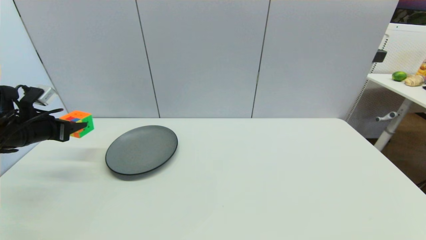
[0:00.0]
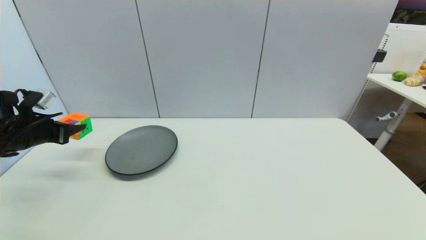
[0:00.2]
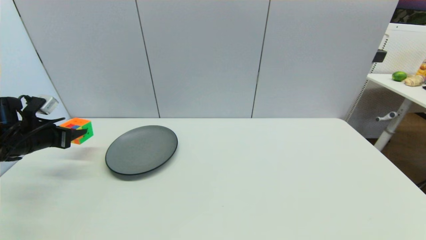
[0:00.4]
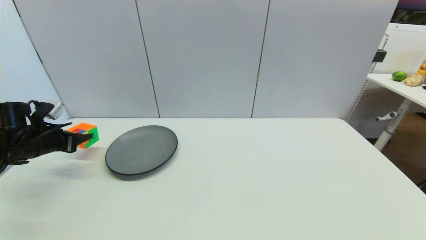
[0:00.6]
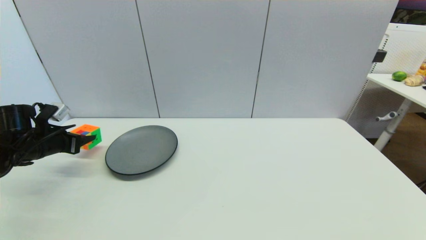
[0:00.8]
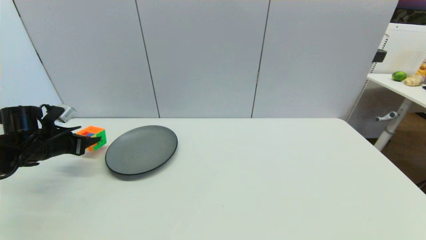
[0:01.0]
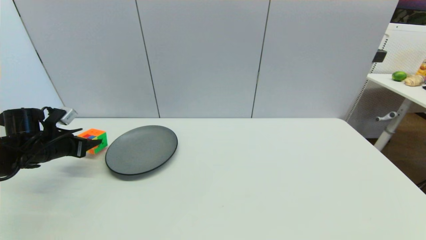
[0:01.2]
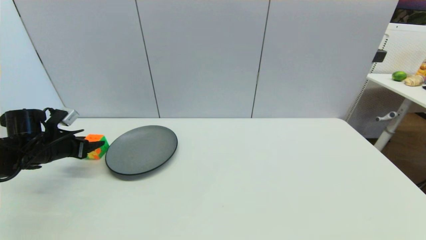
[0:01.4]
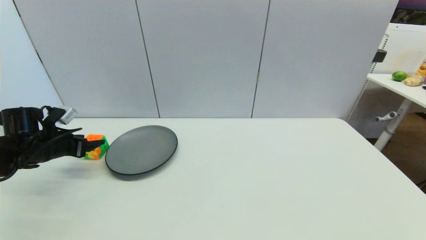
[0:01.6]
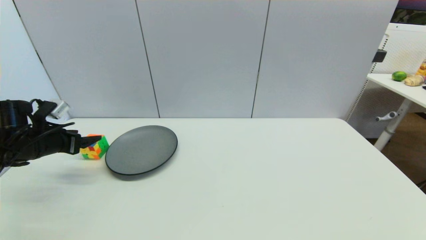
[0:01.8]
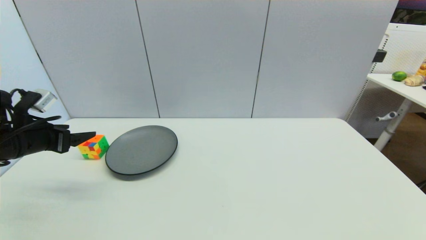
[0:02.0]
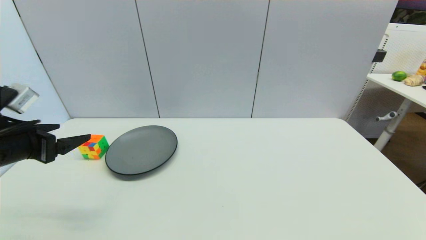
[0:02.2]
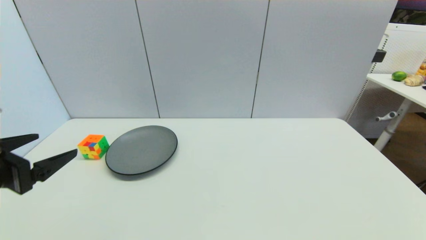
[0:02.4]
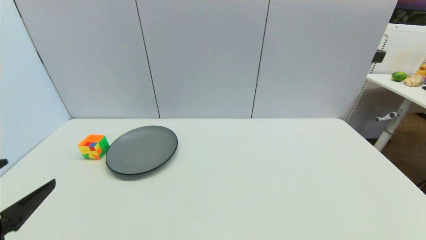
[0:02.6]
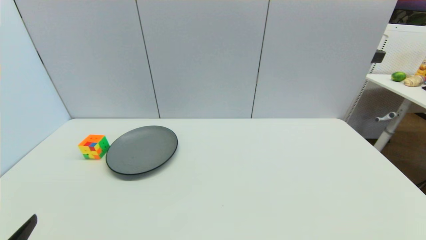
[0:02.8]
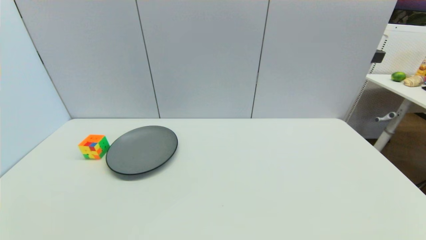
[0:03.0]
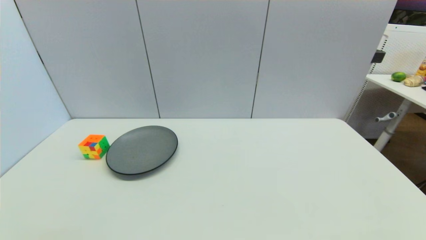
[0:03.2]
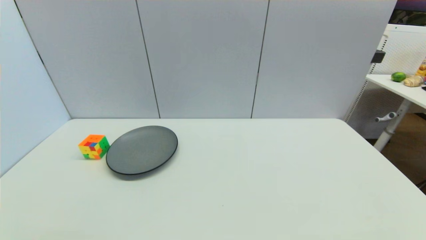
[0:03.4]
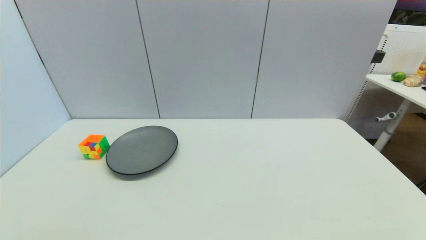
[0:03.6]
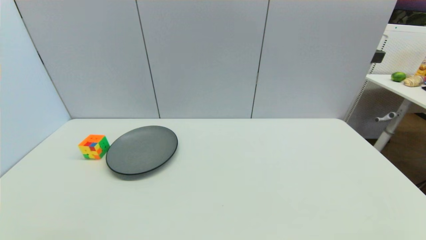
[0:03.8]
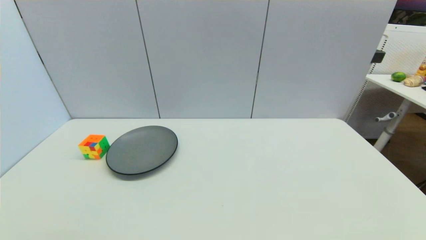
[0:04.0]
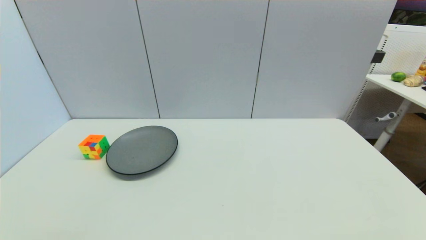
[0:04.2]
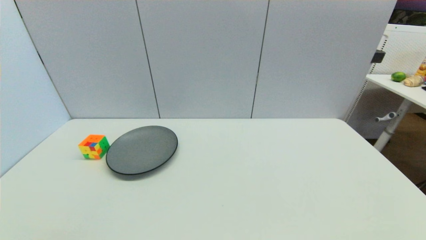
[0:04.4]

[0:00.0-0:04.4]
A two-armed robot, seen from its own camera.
Step, 0:00.0 to 0:02.0: Place the magic cube on the table with left gripper.
0:00.0 to 0:01.4: The left gripper is displaced downward by approximately 5 cm, and opens.
0:01.4 to 0:03.0: The left gripper heads backward, covering some 35 cm, and opens up.
